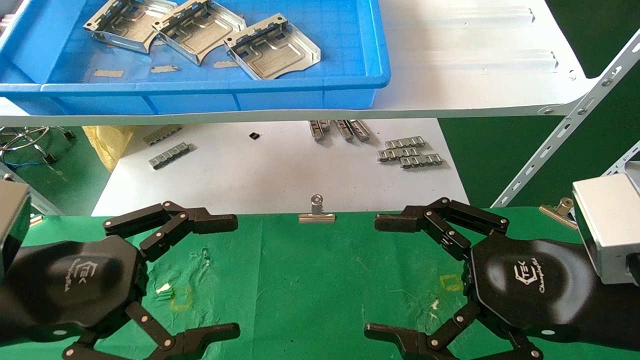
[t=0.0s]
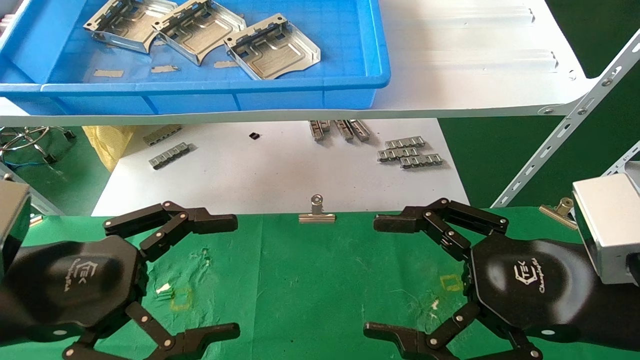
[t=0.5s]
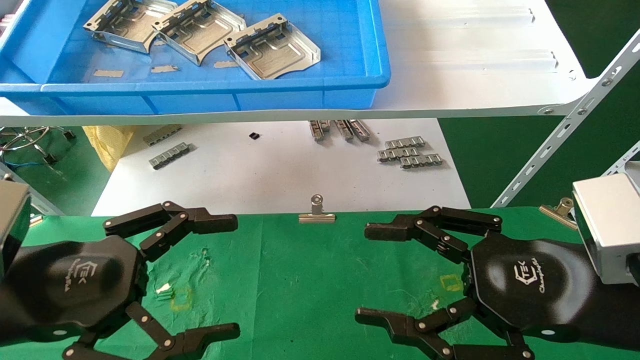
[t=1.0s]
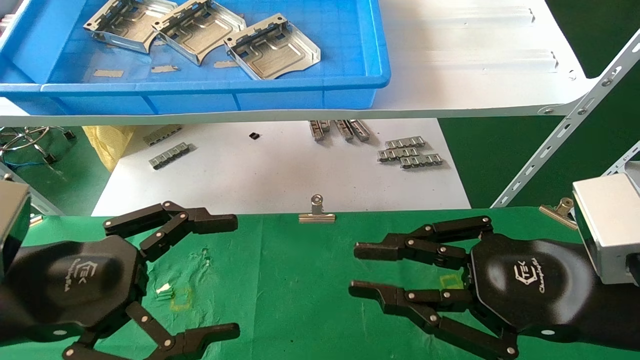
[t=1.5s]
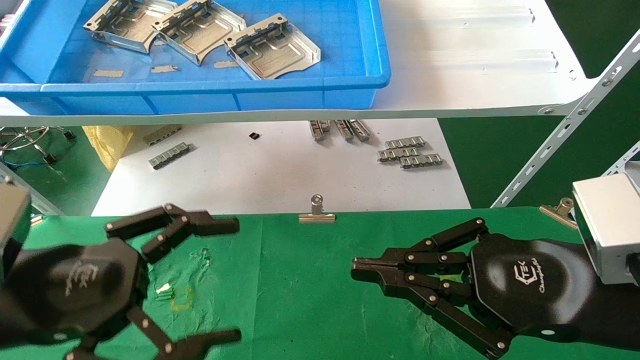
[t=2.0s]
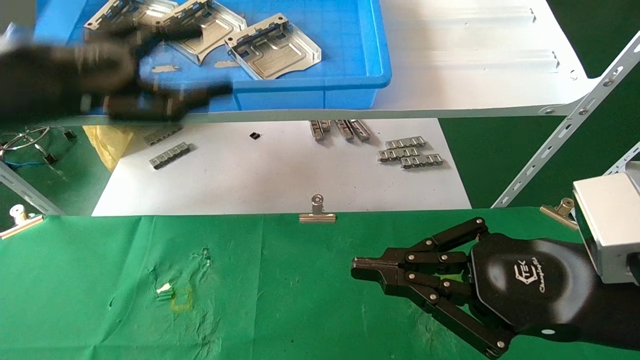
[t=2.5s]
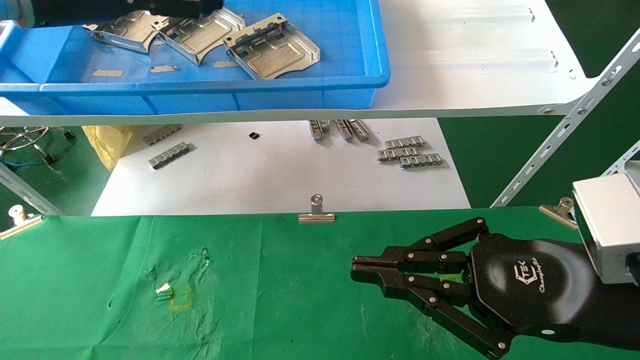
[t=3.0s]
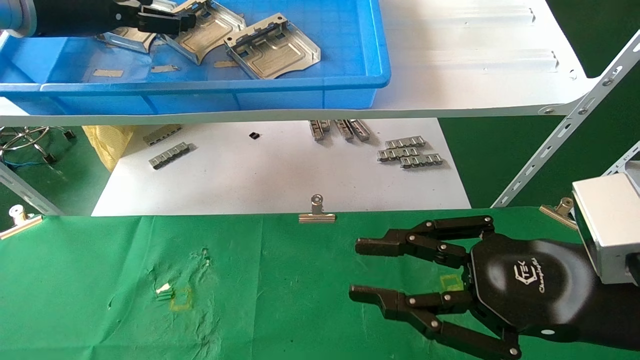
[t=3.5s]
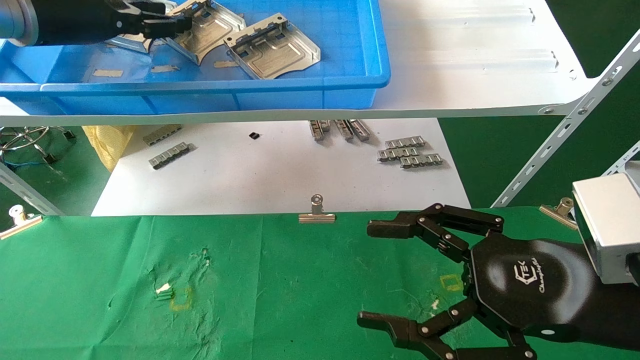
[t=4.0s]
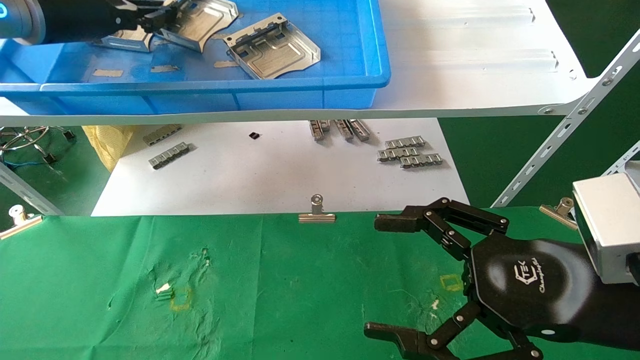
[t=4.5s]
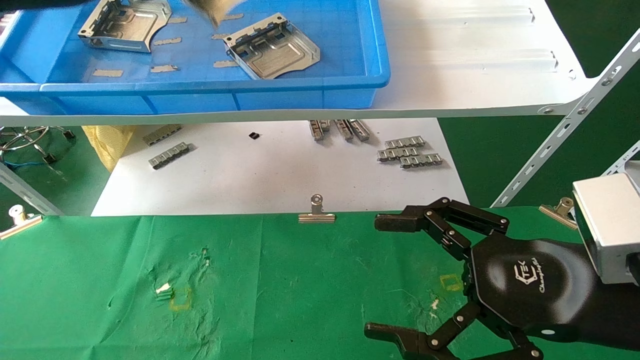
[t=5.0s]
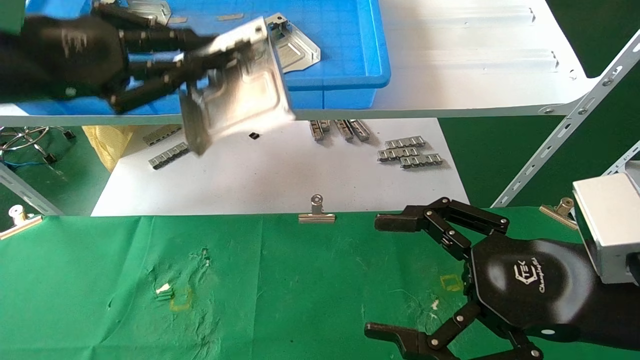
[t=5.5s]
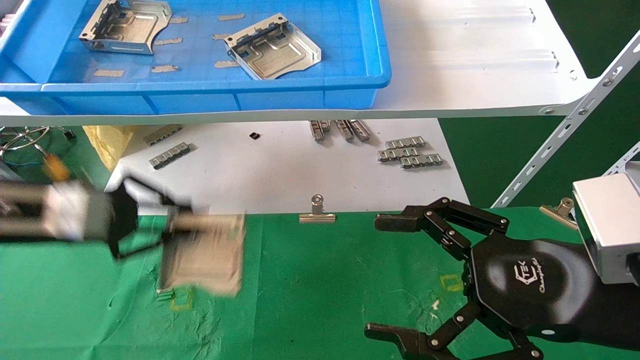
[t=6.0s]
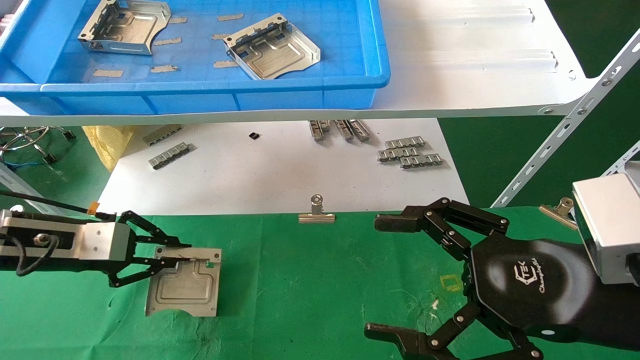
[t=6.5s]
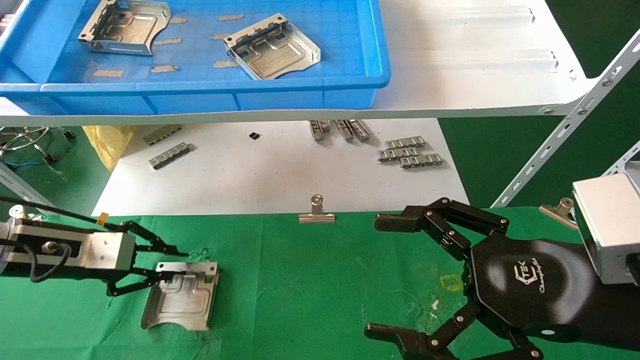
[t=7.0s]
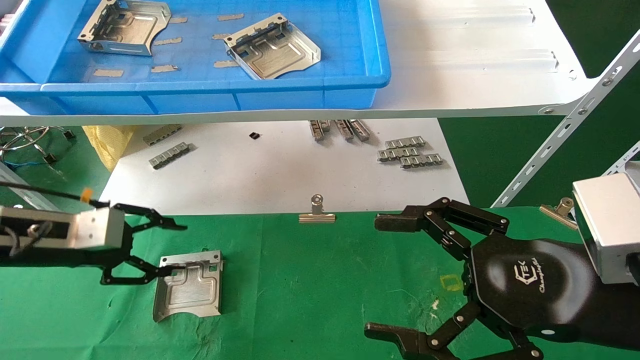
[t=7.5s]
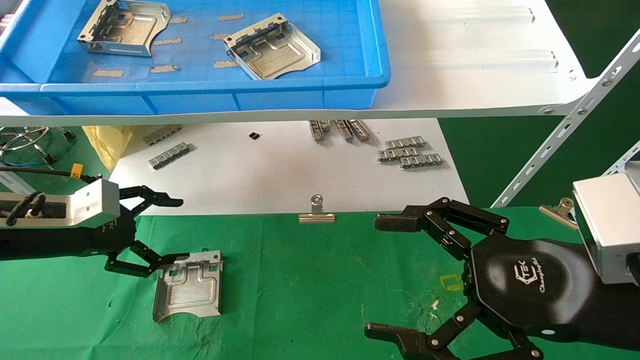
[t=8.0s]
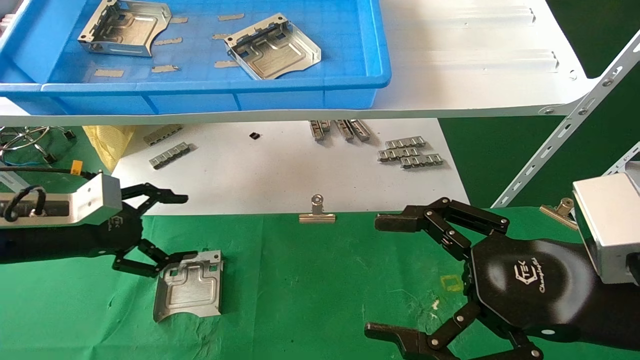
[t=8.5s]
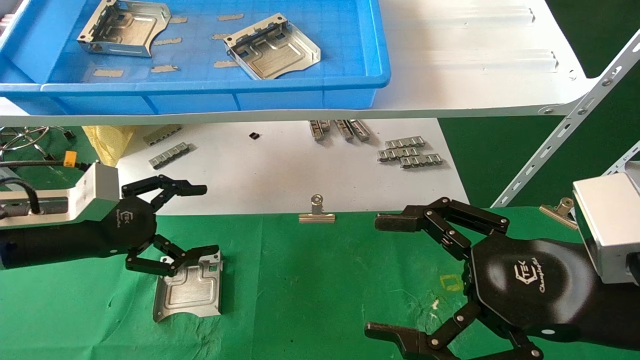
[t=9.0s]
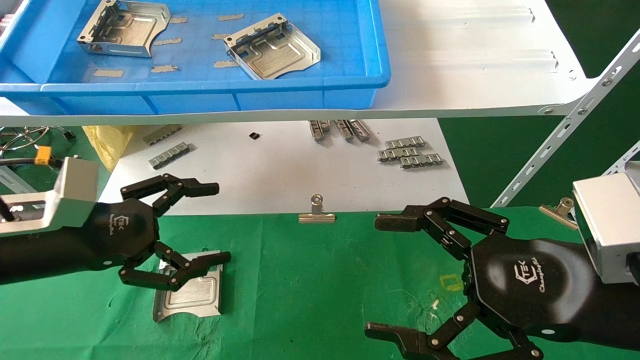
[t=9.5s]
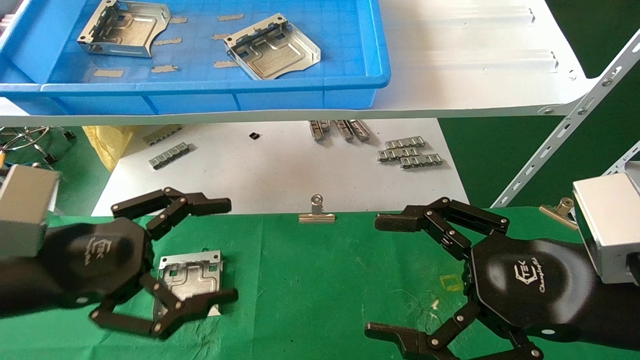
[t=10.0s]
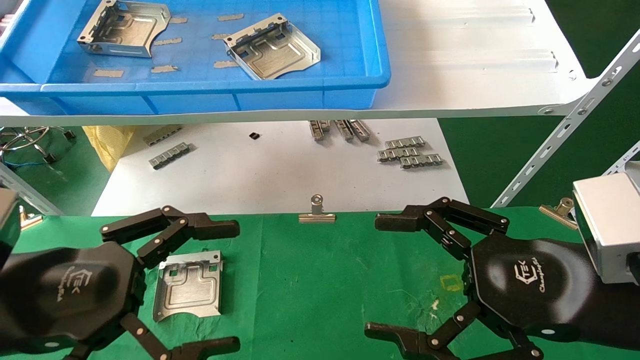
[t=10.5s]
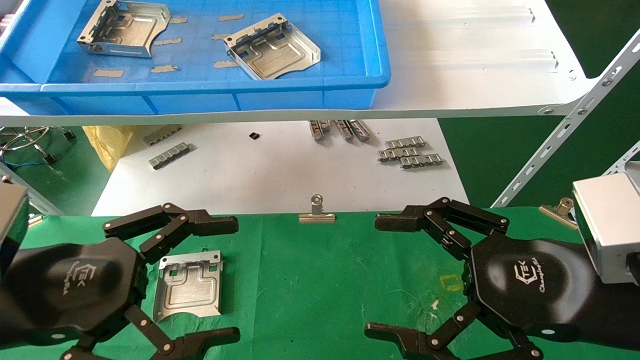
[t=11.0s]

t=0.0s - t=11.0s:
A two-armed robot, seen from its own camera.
Task of the whole recording: use the mechanical arm to pick up the parts and place them on the table.
Step, t=2.5s - t=4.5s: Pick up the hard drive bracket from the feeding area.
Step, t=5.0s - t=7.0s: Place the hard drive bracket into the box.
t=0.0s - t=2.0s: The right gripper closes.
t=2.0s - t=3.5s: The left gripper moves upward and forward, approximately 30 cm.
t=3.5s - t=5.5s: The right gripper opens. The left gripper moves backward and downward, about 15 cm, and closes up.
t=5.5s - t=7.5s: The left gripper heads downward, covering roughly 20 cm, and opens up.
t=7.5s - t=9.0s: The left gripper opens up.
t=9.0s - t=11.0s: The left gripper is displaced backward and to the right by roughly 15 cm.
